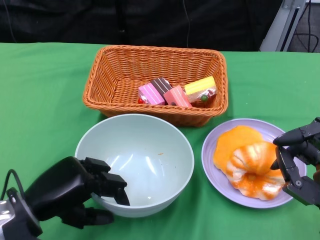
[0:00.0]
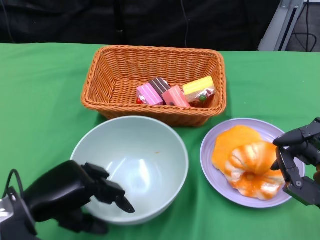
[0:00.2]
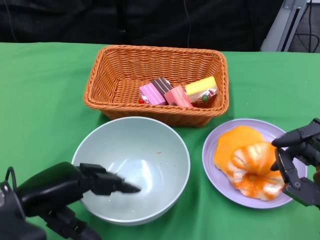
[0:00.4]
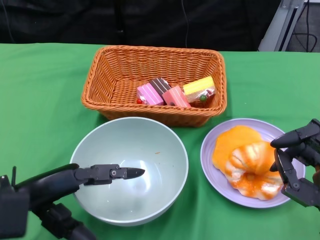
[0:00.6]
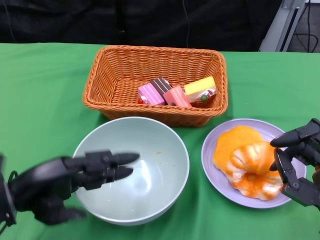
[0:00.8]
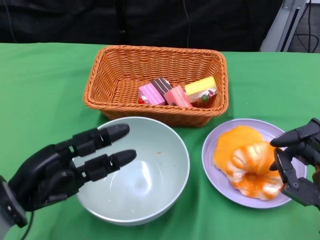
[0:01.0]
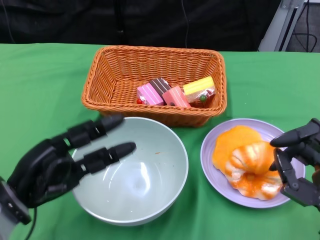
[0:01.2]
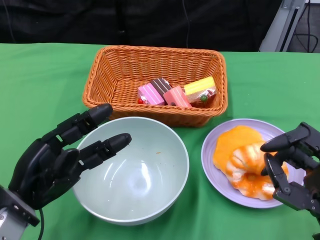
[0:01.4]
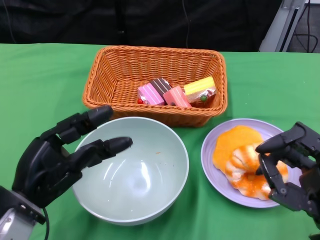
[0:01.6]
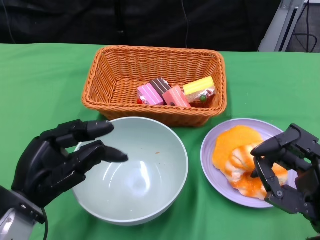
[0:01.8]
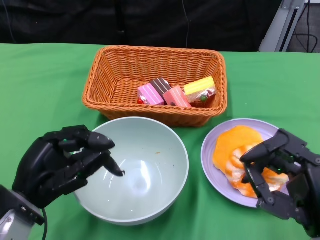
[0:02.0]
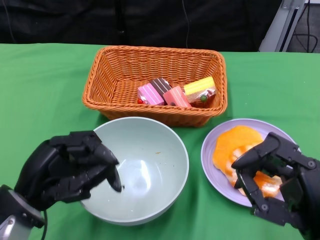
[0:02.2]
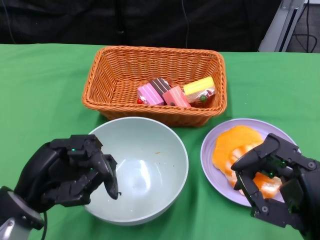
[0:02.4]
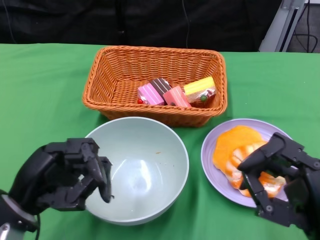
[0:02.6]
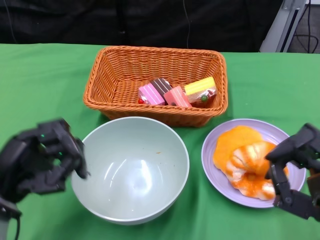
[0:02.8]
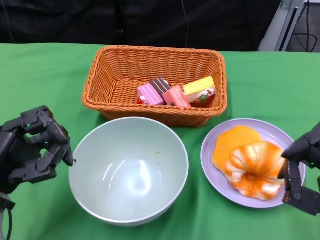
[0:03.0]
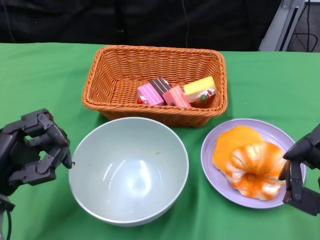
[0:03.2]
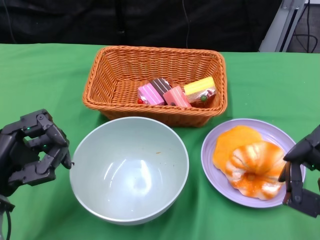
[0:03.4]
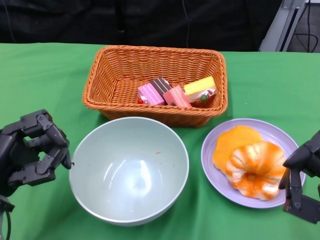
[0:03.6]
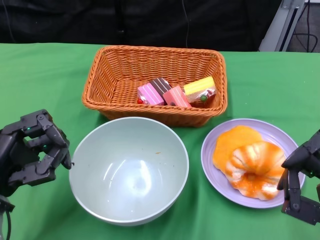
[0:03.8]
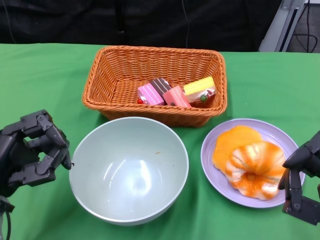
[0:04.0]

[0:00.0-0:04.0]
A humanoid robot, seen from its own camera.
0:01.4 to 0:02.6: The hands make only small movements.

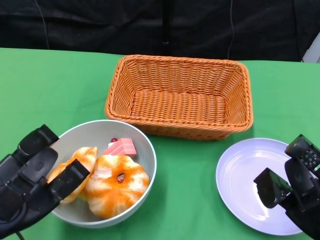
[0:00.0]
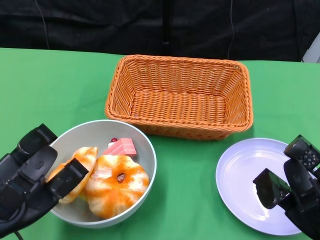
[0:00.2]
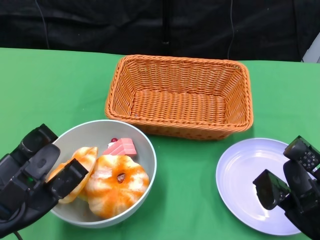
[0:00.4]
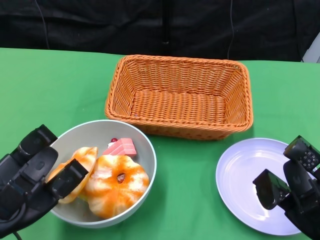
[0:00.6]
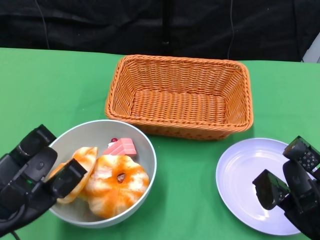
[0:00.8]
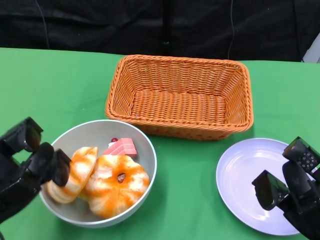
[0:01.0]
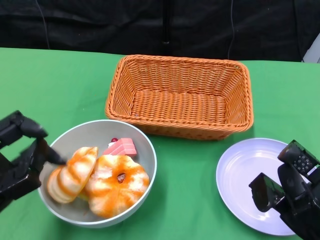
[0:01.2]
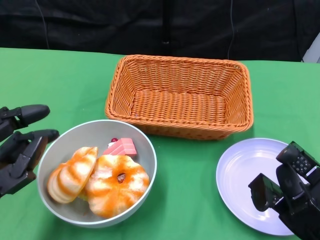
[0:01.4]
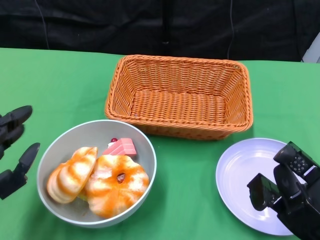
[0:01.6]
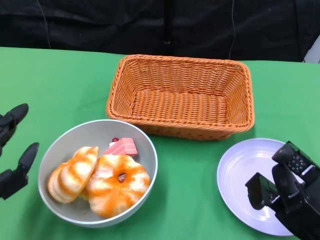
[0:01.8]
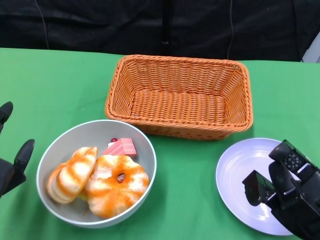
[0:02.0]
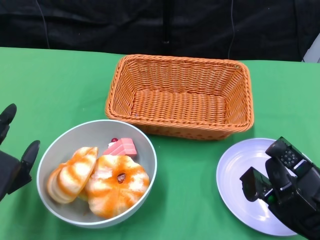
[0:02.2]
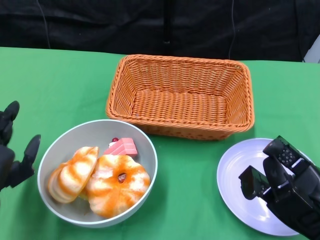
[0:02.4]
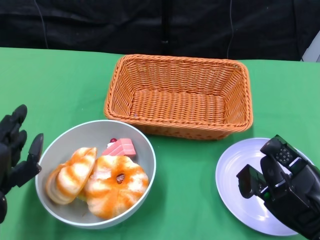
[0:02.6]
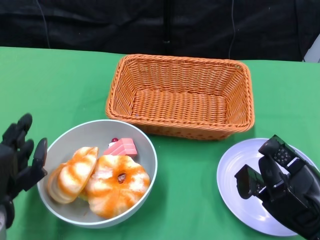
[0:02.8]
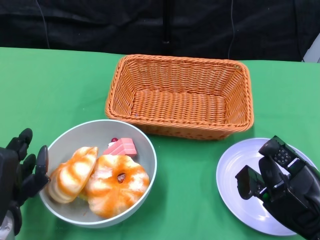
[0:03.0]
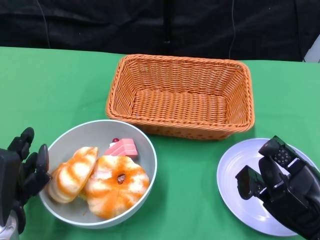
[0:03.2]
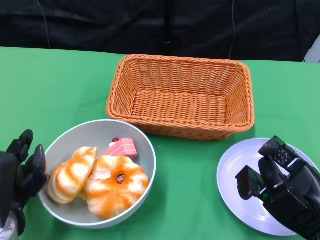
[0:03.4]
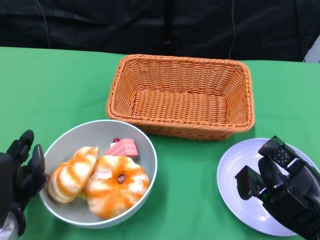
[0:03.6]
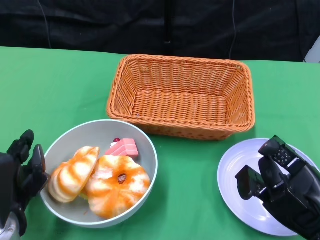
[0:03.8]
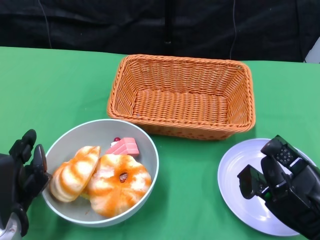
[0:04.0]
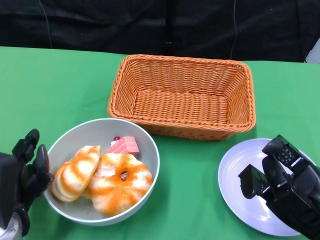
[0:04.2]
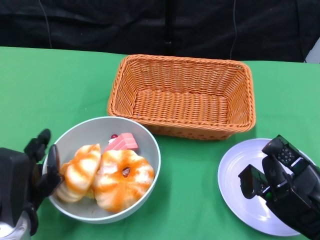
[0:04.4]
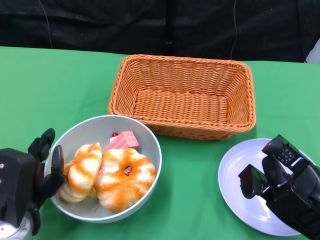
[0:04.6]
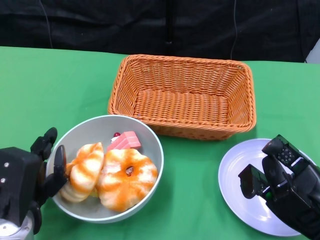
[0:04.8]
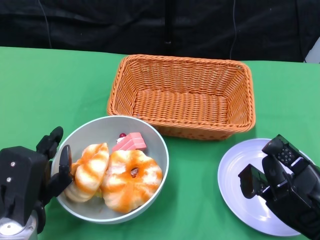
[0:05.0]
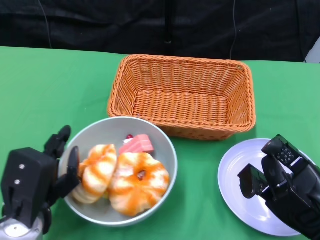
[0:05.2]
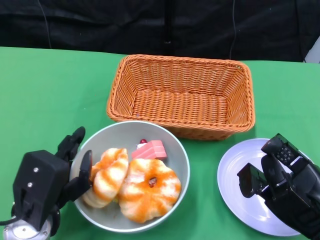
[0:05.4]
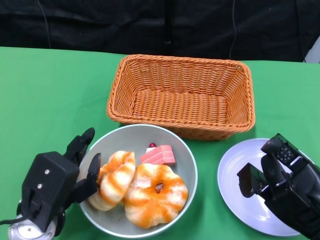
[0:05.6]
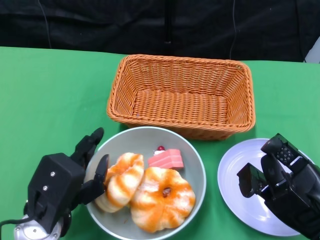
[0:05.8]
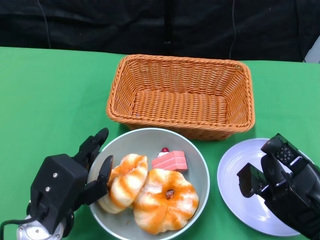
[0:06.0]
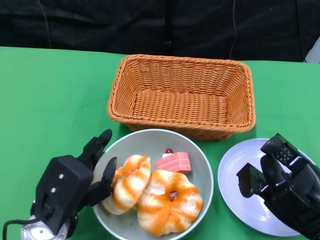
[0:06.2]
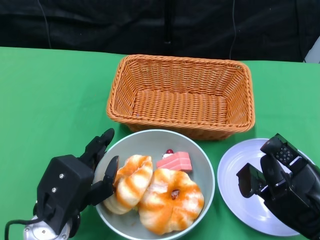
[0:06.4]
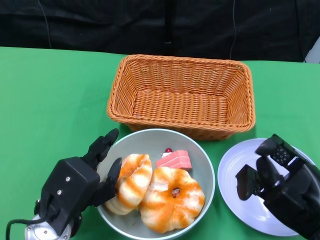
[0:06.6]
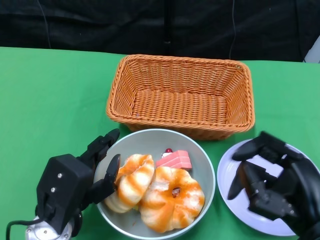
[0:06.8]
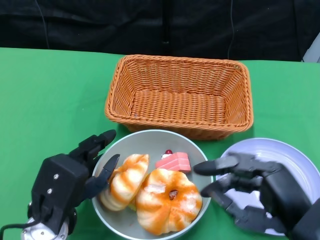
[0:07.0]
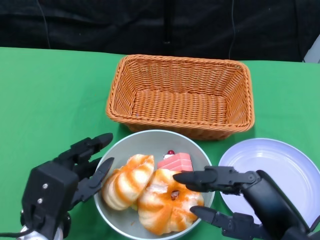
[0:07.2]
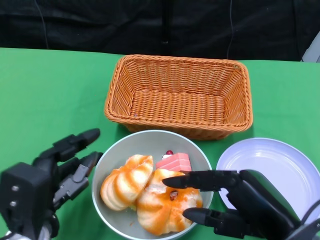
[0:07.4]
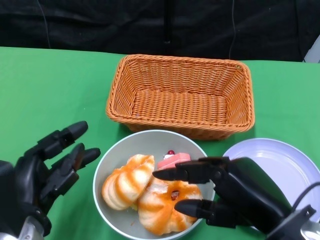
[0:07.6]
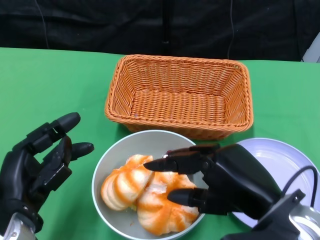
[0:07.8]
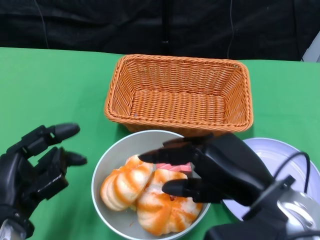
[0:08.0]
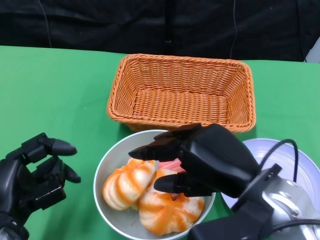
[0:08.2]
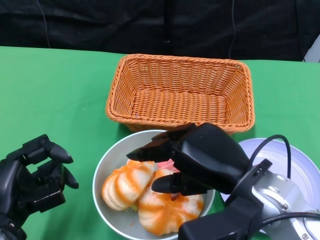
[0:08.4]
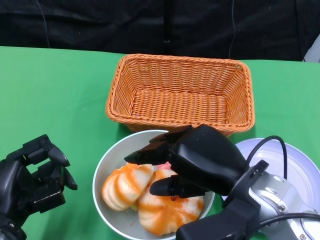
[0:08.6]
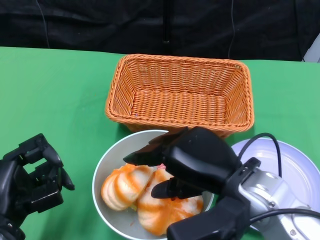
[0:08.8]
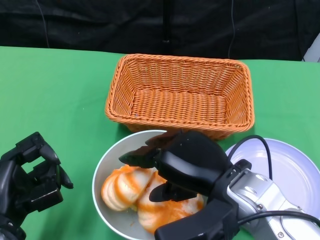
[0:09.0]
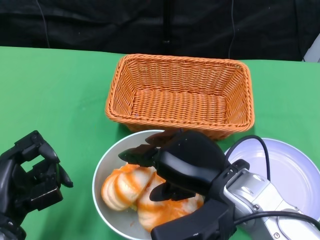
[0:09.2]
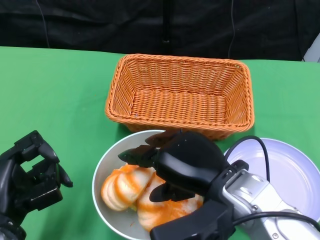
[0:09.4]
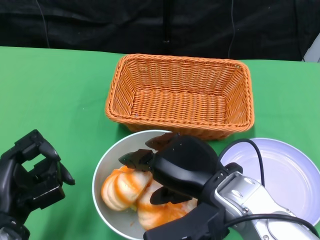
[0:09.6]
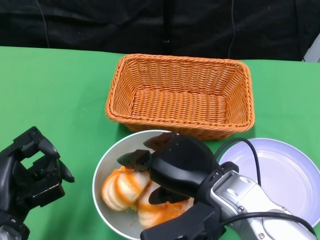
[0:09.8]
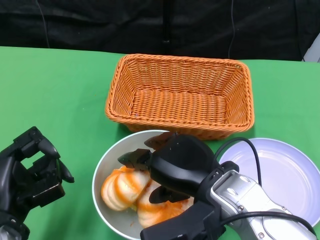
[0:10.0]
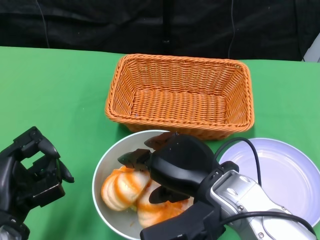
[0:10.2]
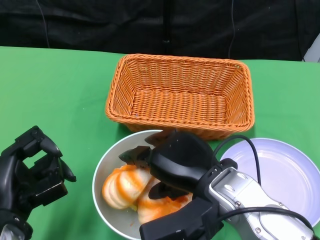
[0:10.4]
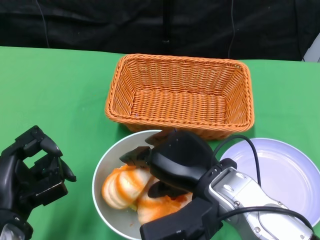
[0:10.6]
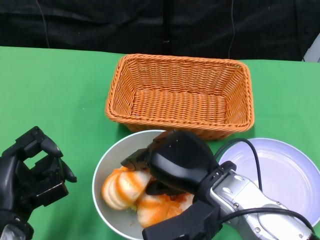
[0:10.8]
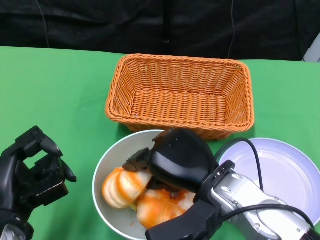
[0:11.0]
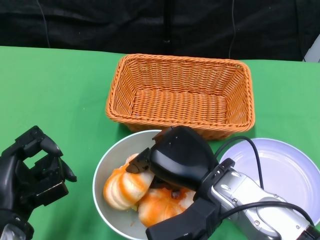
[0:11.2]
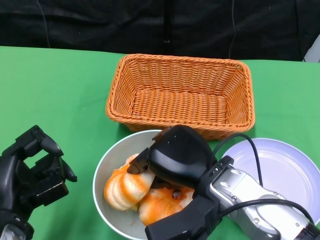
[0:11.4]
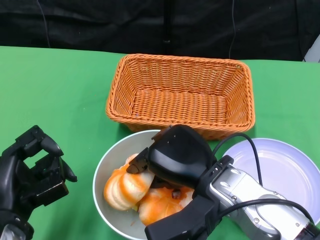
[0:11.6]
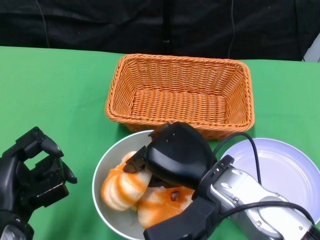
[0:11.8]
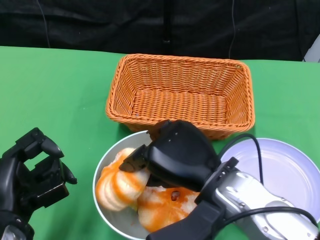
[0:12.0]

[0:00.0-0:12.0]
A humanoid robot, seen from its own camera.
Step, 0:00.0 to 0:07.2: Push the bowl to the center of the table using the left gripper.
0:01.6 to 0:03.0: The left hand moves about 5 cm.
0:03.0 to 0:04.4: There are only small adjustments of the hands.
0:06.0 to 0:07.6: The right hand goes some 5 cm to the left.
0:07.6 to 0:09.0: The right hand moves to the left and forward, some 10 cm.
0:09.0 to 0:12.0: The hands stay close to where they were, moving slightly.

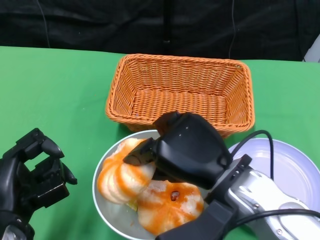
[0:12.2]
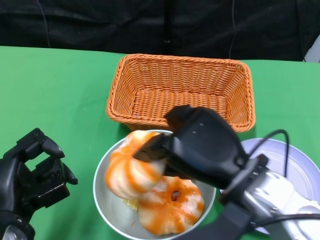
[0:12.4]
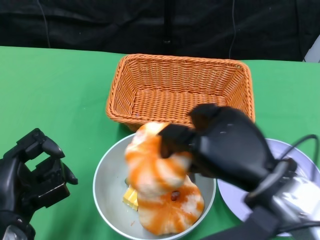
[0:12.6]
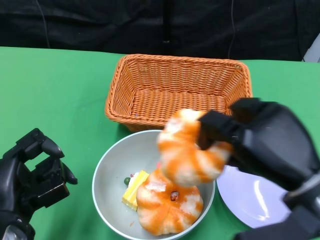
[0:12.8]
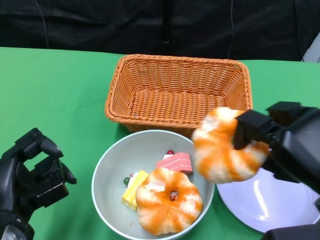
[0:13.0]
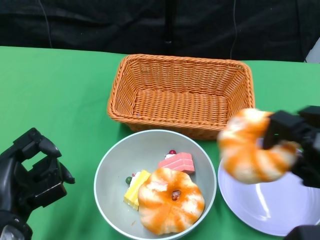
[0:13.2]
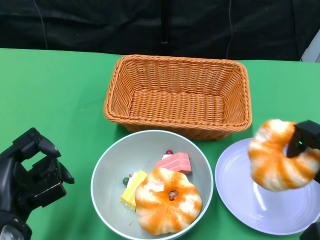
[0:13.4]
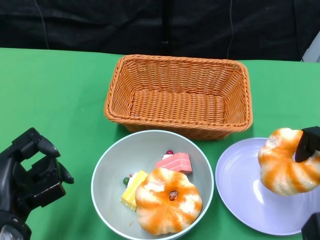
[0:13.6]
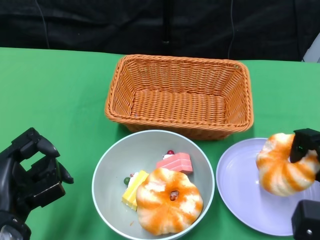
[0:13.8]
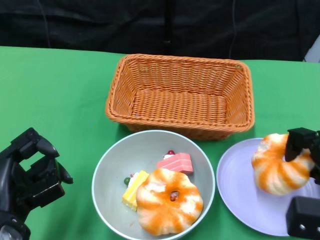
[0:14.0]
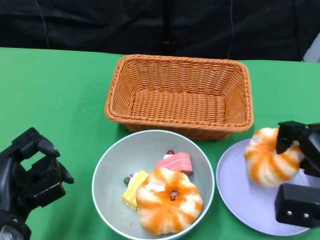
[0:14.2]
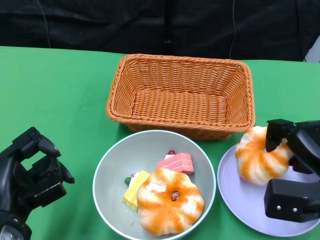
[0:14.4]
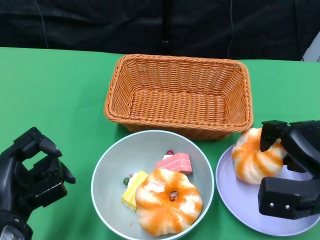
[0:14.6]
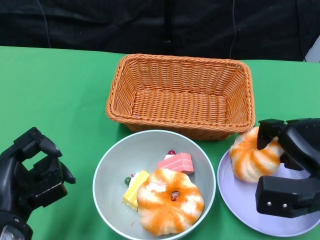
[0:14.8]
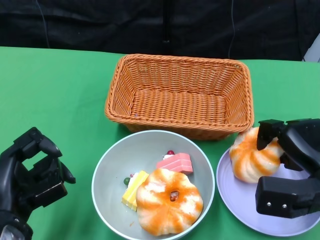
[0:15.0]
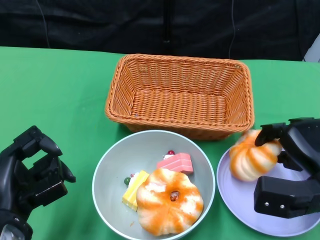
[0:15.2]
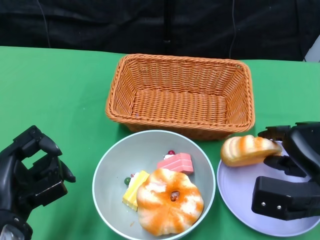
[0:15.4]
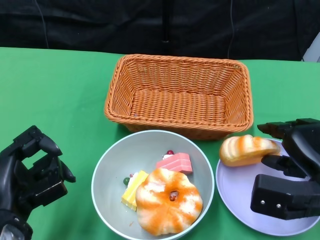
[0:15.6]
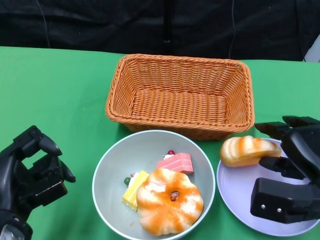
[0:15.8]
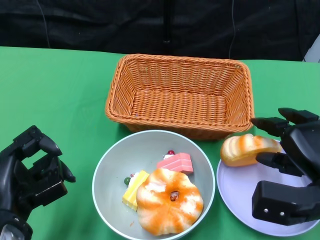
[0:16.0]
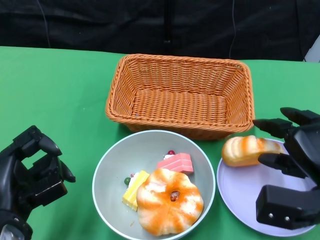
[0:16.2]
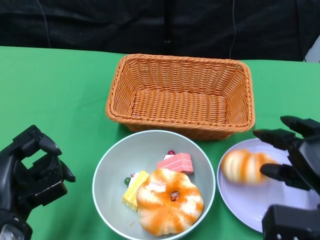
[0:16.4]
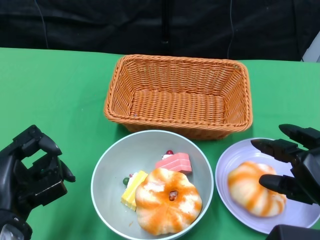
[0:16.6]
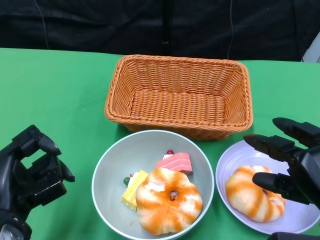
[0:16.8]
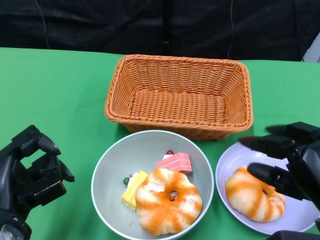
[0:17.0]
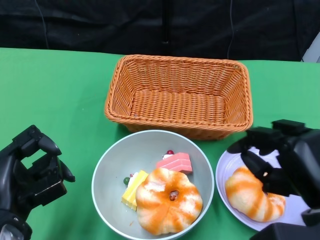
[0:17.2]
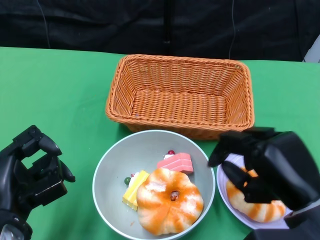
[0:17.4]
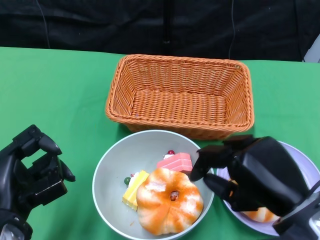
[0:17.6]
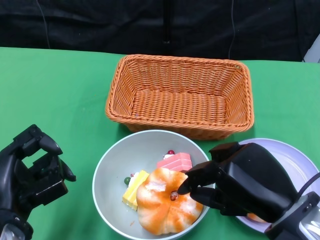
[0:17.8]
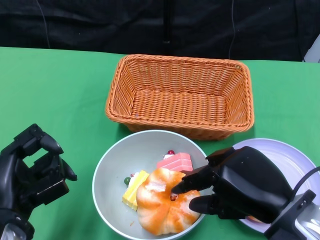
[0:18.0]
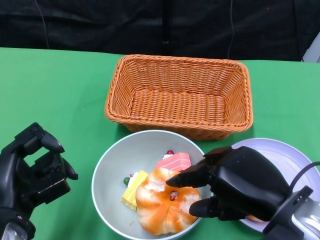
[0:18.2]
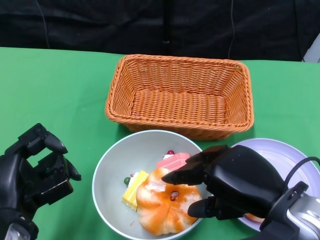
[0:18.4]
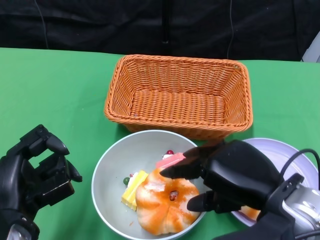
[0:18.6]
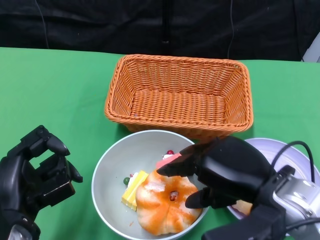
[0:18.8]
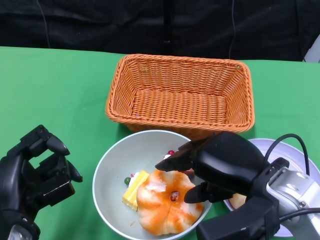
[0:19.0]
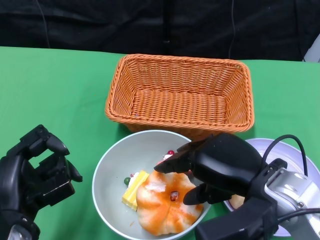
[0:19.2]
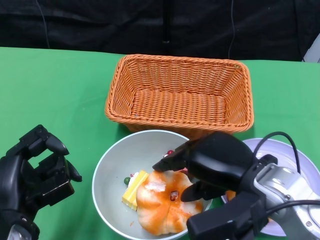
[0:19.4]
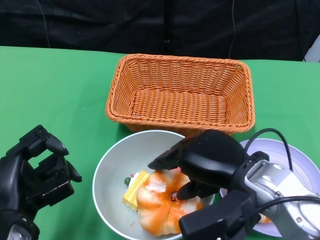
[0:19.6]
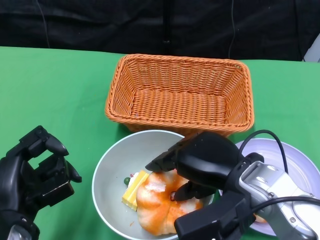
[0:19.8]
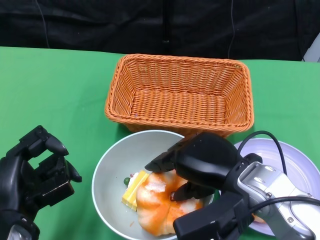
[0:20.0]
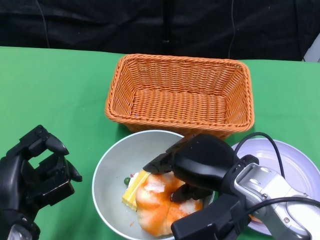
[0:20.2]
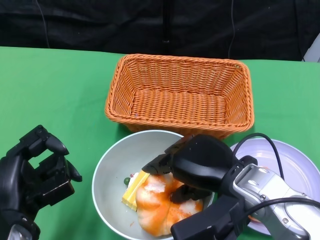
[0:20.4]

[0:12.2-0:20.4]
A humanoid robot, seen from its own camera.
Step, 0:12.2 to 0:16.6: Pick up the bread with the right gripper and place it on the plate.
0:12.2 to 0:13.8: The right hand travels to the right by approximately 20 cm.
0:13.8 to 0:15.4: The right hand changes place by about 5 cm.
0:15.4 to 0:17.2: The right hand shifts roughly 5 cm backward.
0:17.2 to 0:18.8: The right hand heads to the left, covering some 5 cm.
0:18.8 to 0:20.4: The right hand shifts by about 5 cm.
